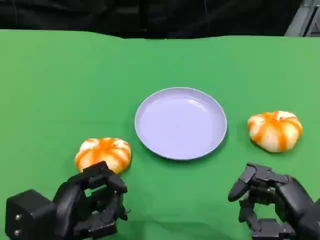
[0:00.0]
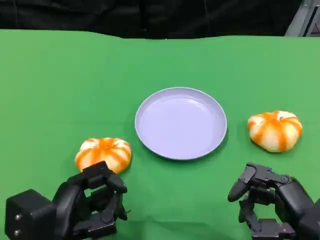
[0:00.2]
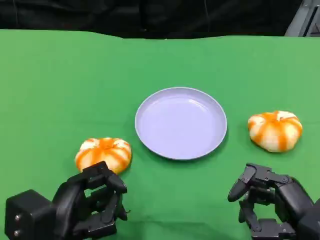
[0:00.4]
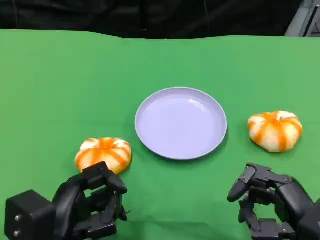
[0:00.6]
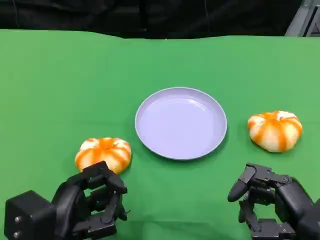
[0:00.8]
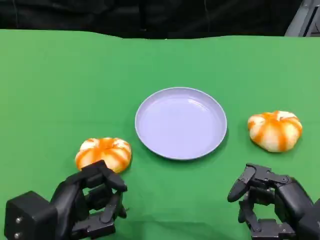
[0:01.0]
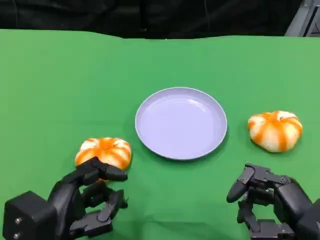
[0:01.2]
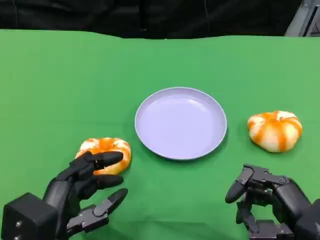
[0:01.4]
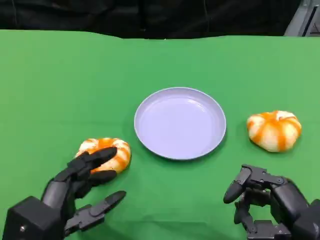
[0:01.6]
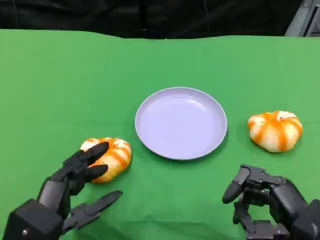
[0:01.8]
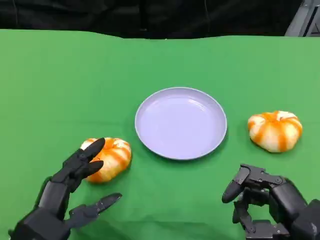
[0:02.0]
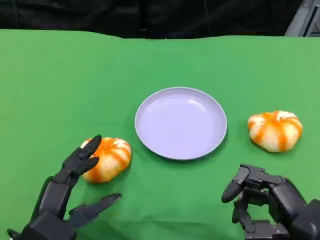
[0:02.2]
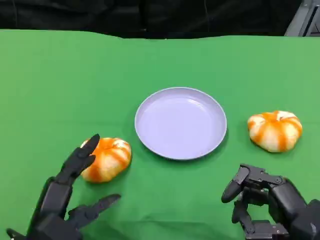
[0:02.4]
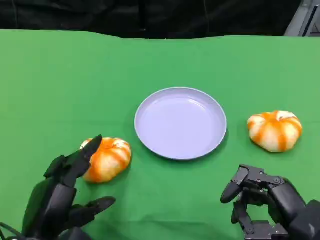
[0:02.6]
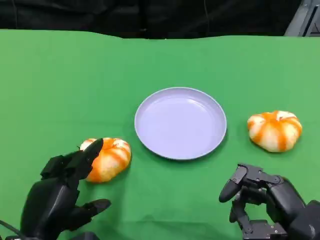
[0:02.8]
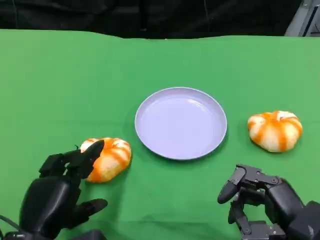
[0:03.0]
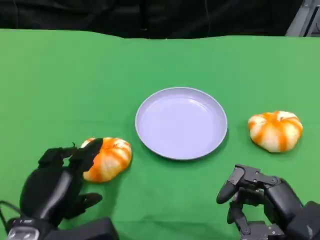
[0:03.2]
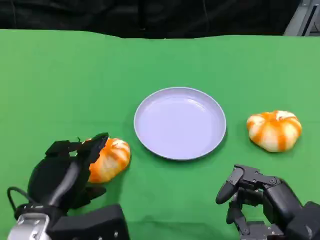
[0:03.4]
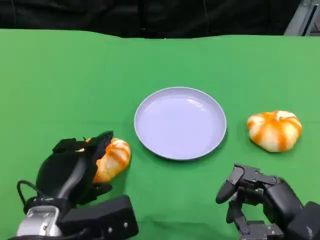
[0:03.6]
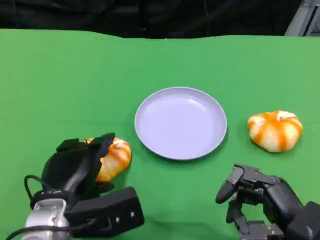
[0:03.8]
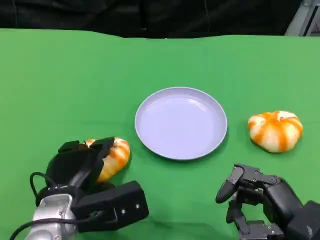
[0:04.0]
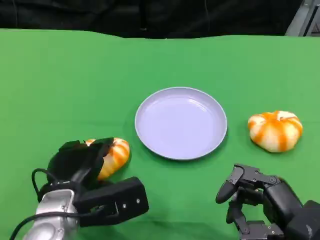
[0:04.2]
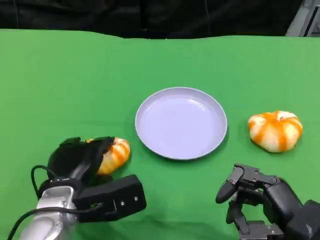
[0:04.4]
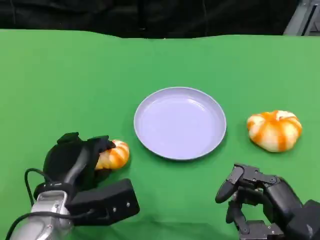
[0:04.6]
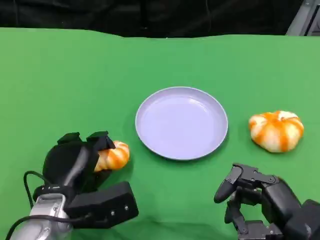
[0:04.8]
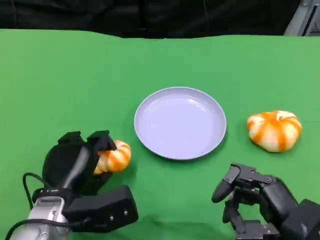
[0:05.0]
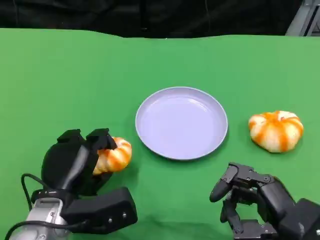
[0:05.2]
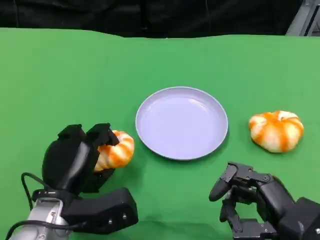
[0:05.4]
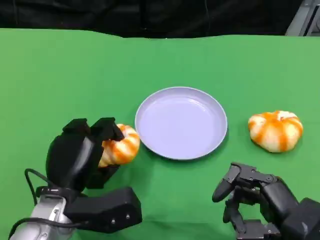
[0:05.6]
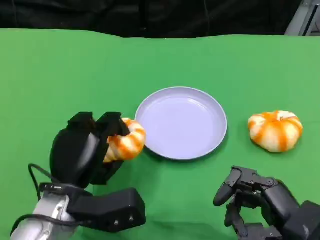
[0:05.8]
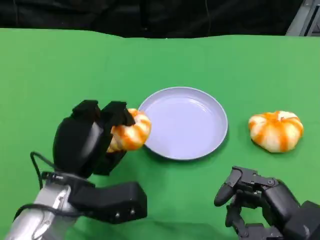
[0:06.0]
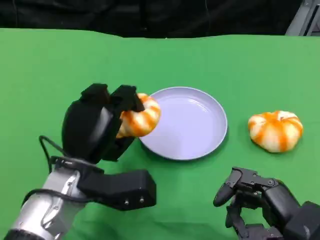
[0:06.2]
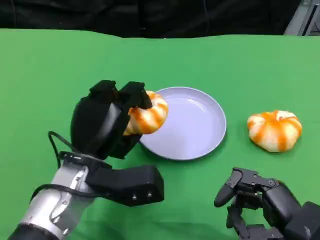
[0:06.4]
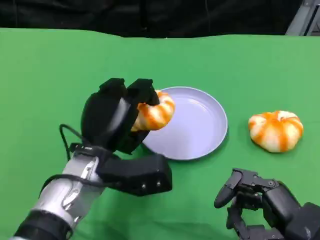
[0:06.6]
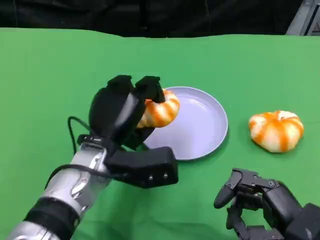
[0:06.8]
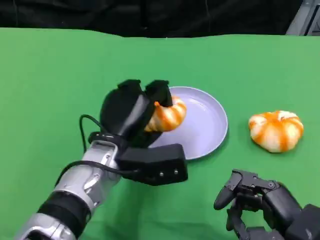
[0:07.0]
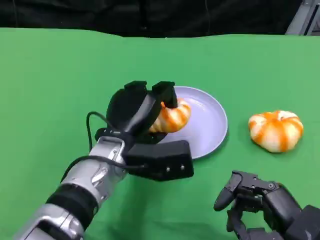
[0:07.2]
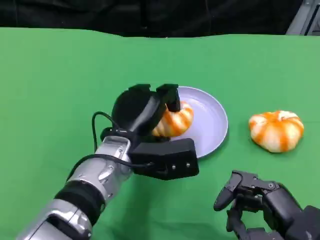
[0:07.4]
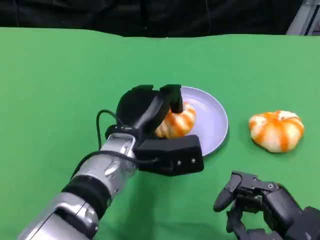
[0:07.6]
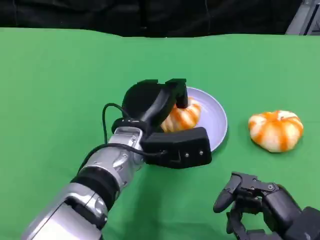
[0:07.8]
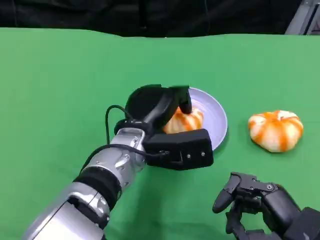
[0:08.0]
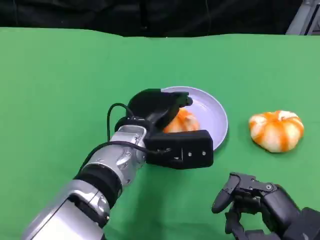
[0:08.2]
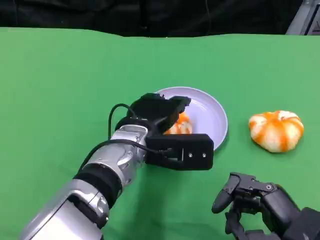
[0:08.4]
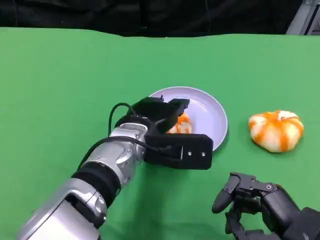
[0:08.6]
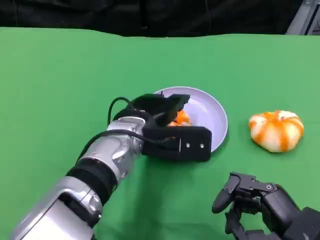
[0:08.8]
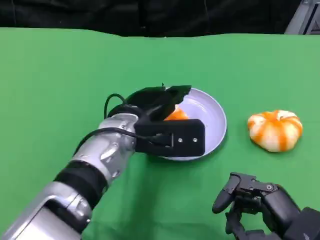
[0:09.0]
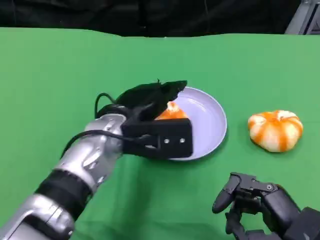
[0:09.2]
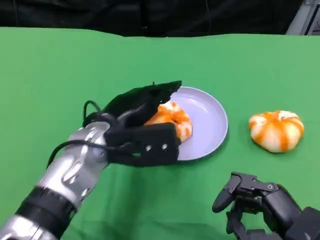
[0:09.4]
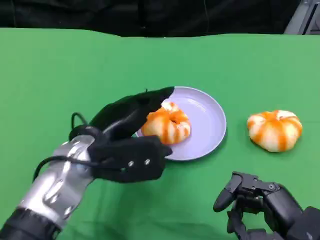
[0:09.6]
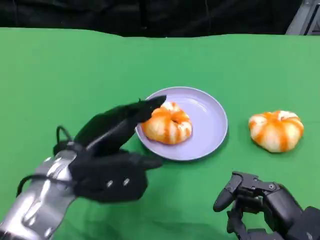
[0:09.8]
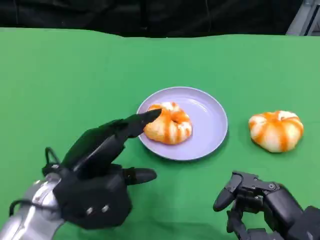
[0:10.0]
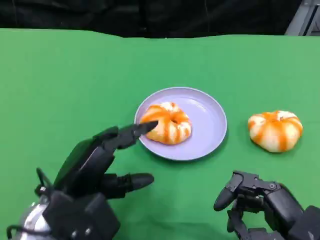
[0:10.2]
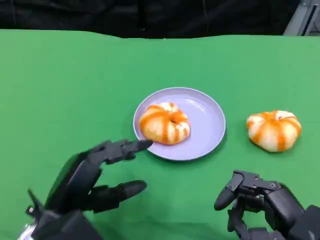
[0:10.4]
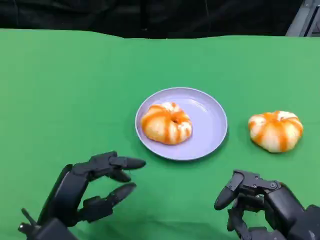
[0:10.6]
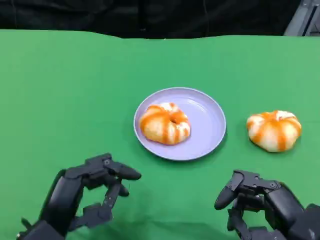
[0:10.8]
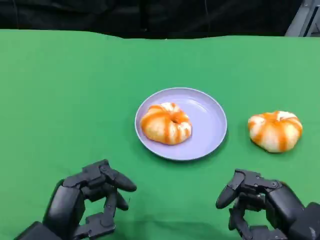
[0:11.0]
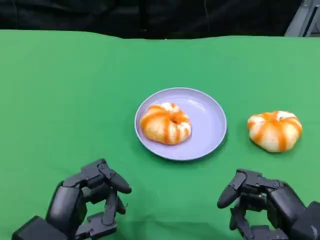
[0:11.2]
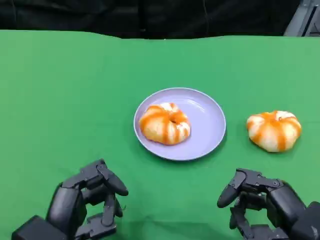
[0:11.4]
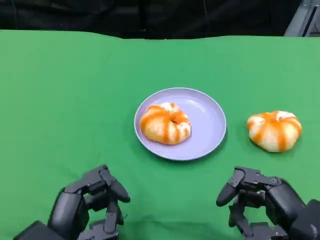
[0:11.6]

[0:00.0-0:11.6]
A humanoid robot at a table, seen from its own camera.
Task of the whole recording: Grasp the bread from the table and place it into the plate.
0:00.0 to 0:01.4: There are only small adjustments of the hands.
0:02.8 to 0:04.4: The left hand goes approximately 10 cm forward.
0:05.8 to 0:07.2: The left hand shifts approximately 10 cm to the right and forward.
0:08.8 to 0:10.2: The left hand goes roughly 15 cm to the left and backward.
0:10.2 to 0:11.6: The left hand shifts some 5 cm backward.

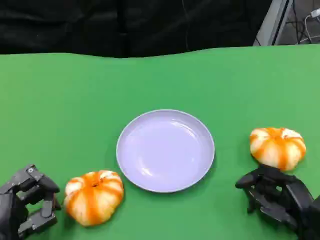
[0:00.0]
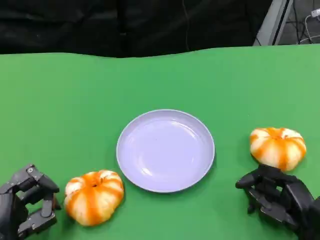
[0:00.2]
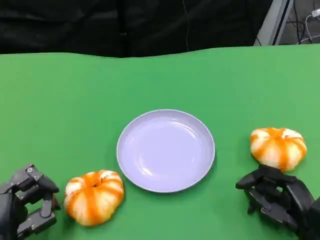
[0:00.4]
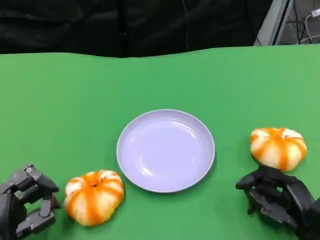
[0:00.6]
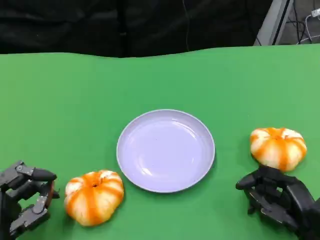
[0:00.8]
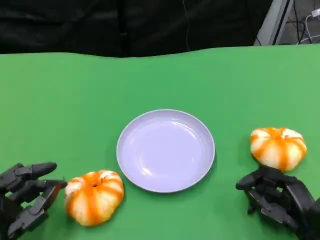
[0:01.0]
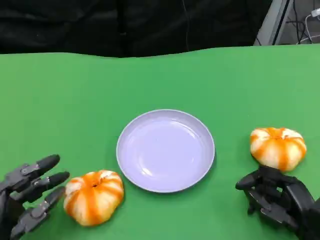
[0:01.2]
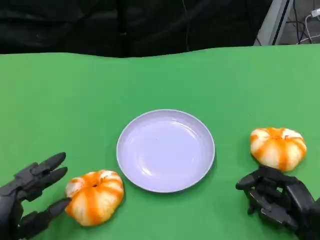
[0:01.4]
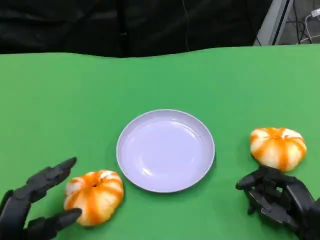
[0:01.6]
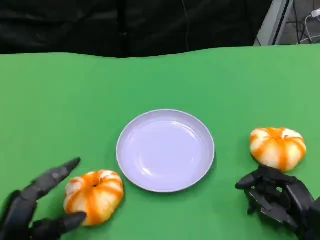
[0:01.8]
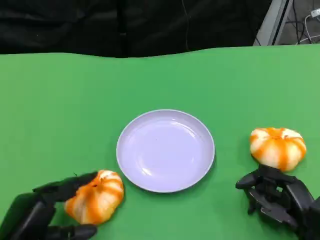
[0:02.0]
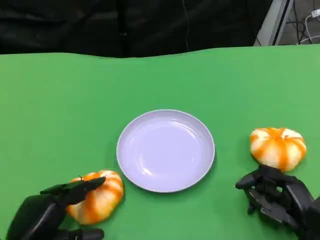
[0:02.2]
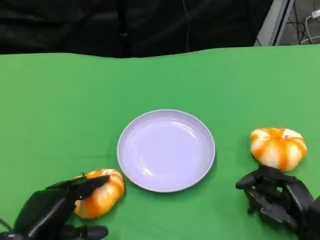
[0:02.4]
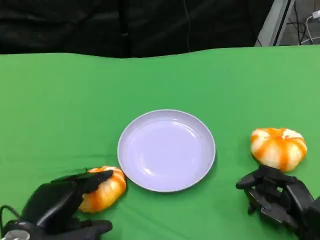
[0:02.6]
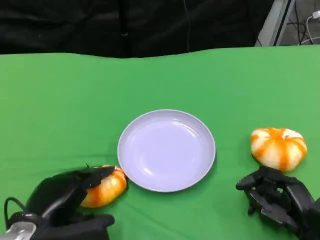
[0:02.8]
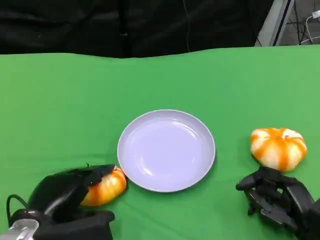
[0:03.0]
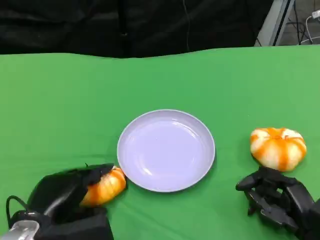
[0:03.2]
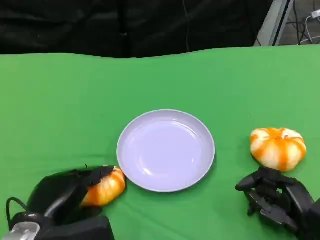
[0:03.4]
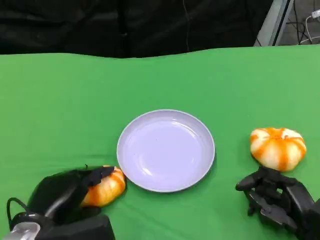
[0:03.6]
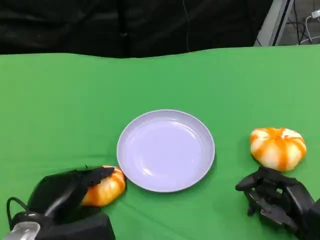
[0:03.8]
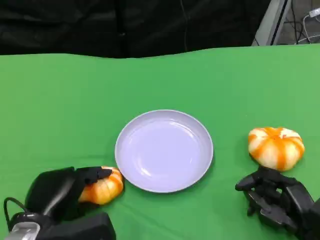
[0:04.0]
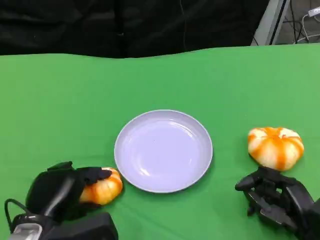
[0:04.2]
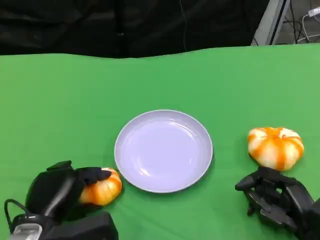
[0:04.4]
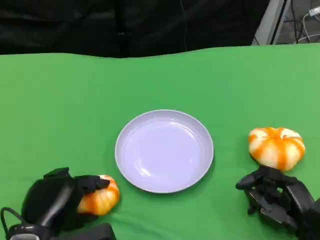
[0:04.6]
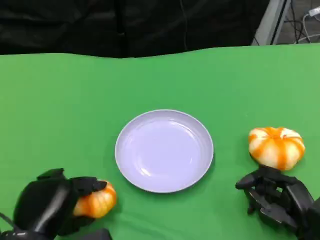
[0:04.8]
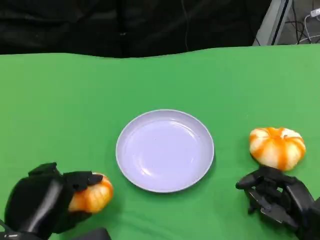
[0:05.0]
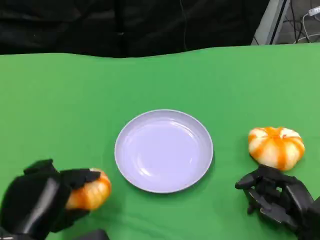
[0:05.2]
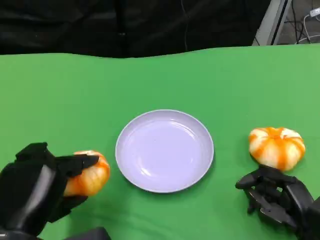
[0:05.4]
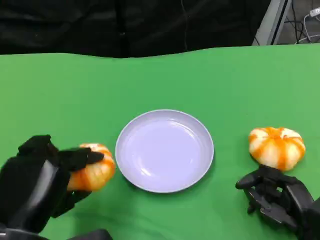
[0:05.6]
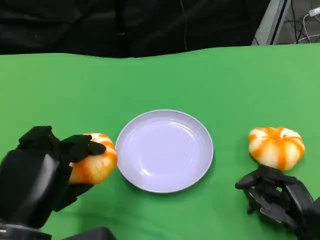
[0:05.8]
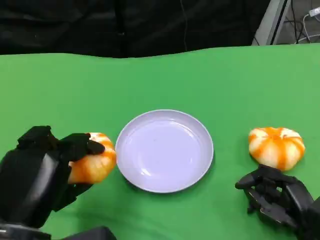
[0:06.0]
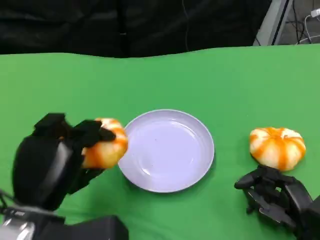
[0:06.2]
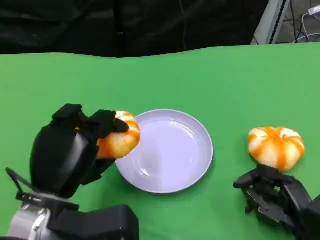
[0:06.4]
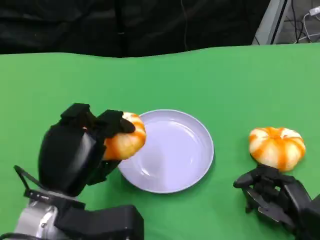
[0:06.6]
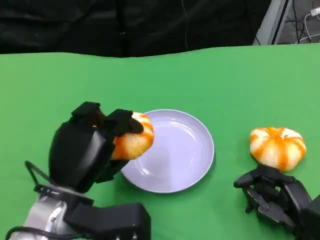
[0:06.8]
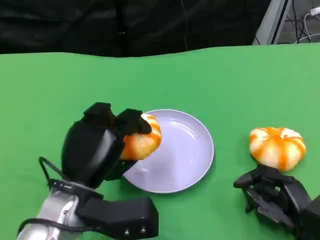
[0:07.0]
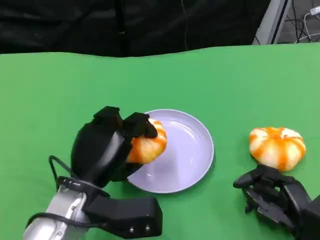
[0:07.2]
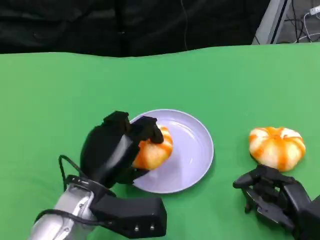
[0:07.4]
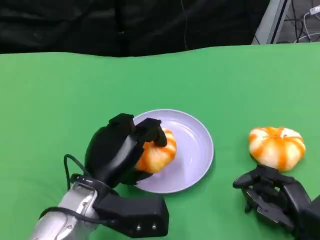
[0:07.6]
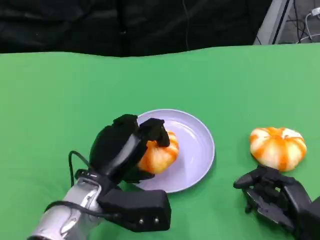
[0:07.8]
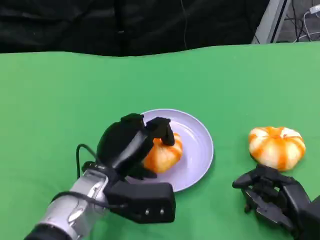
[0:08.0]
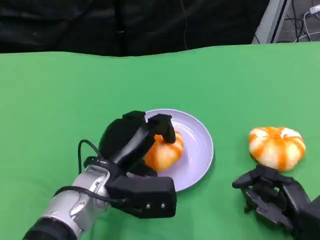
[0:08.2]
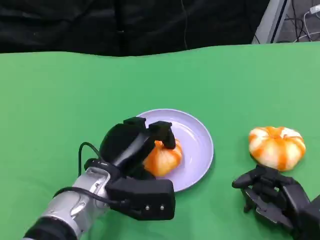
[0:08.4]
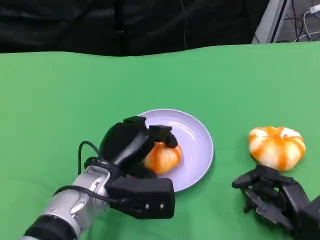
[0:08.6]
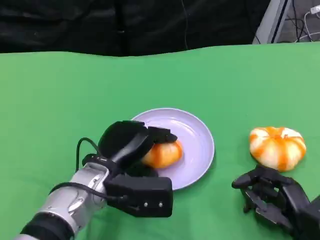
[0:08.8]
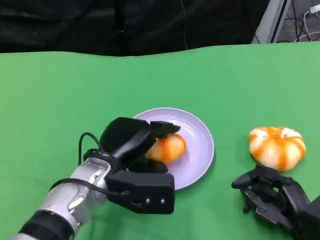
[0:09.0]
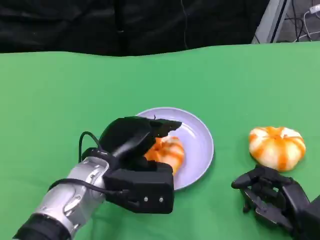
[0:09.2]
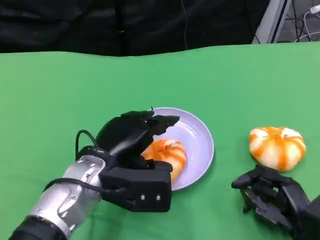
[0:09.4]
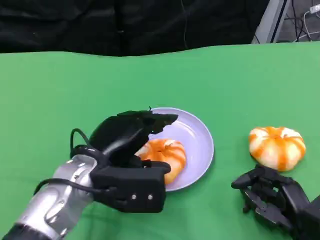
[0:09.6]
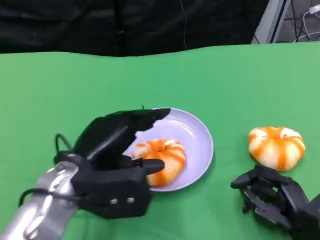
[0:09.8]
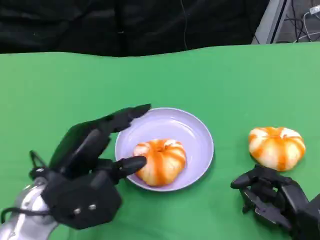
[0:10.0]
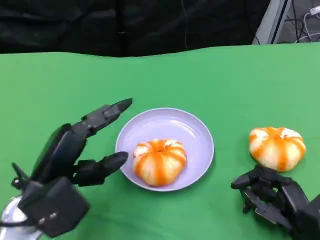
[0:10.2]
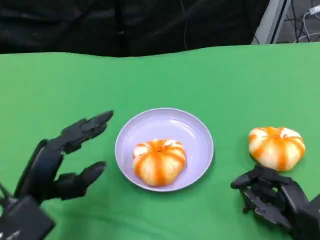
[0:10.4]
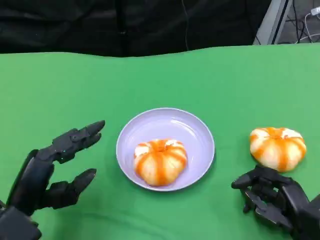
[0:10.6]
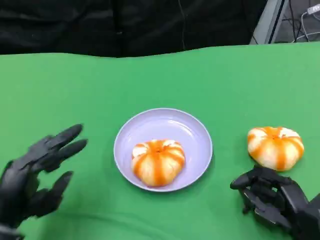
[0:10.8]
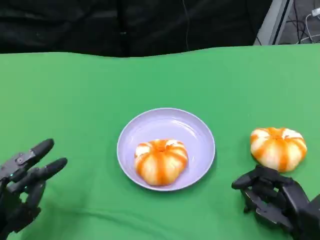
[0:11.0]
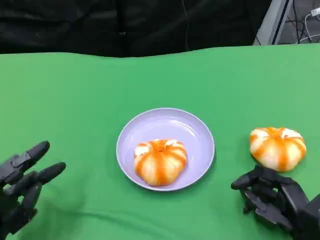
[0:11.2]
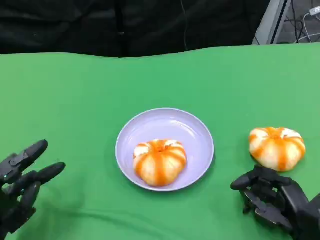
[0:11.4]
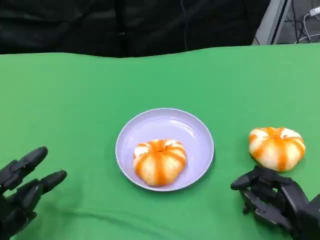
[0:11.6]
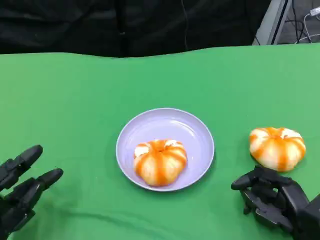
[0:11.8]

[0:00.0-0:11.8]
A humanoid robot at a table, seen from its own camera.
Task of the whole recording: Grasp the bread from the table and place it into the plate.
0:00.0 to 0:01.4: The hands stay close to where they were, moving slightly.
0:01.4 to 0:03.0: The left hand shifts about 5 cm to the right.
0:03.0 to 0:04.4: There are only small adjustments of the hands.
0:04.4 to 0:06.0: The left hand moves upward, roughly 10 cm.
0:06.0 to 0:07.4: The left hand is displaced forward, to the right and downward by approximately 10 cm.
0:07.4 to 0:08.8: The hands stay close to where they were, moving slightly.
0:08.8 to 0:10.4: The left hand moves to the left and backward, about 15 cm.
0:10.4 to 0:11.8: The left hand shifts approximately 10 cm downward and to the left.
